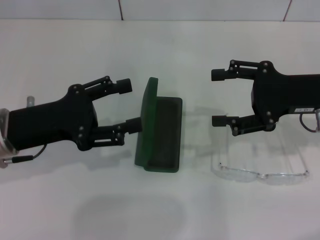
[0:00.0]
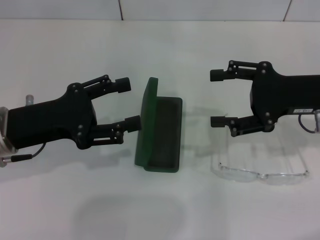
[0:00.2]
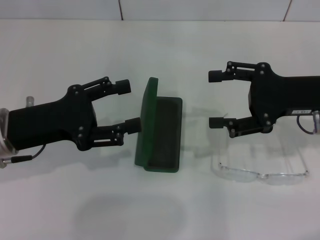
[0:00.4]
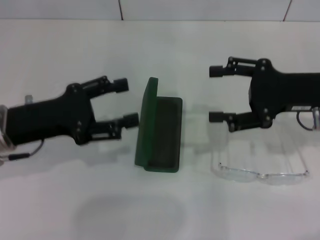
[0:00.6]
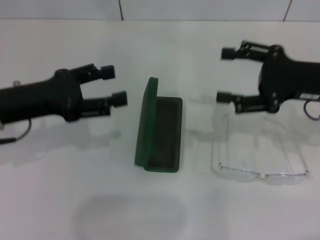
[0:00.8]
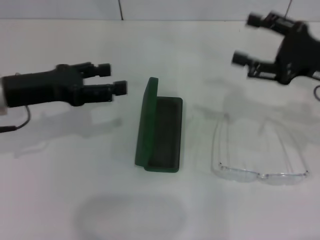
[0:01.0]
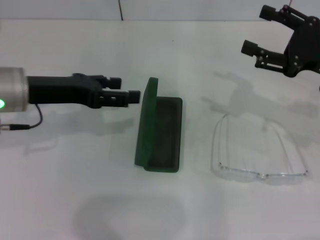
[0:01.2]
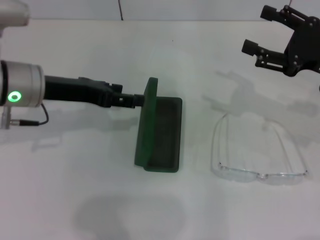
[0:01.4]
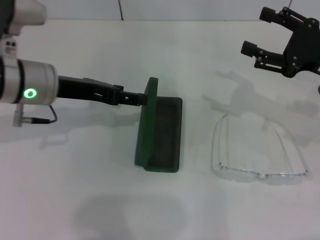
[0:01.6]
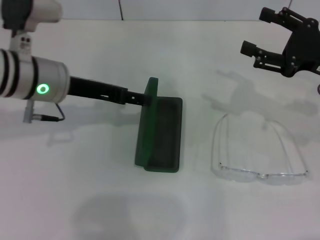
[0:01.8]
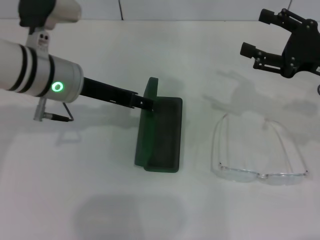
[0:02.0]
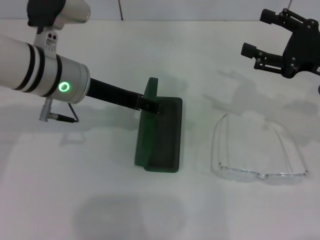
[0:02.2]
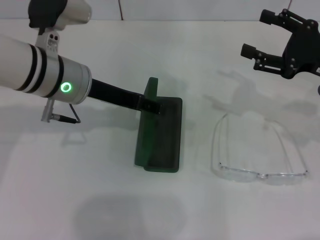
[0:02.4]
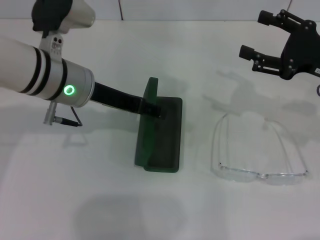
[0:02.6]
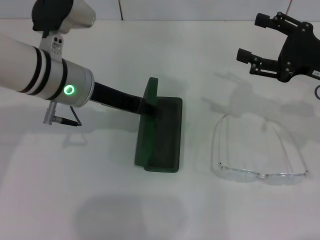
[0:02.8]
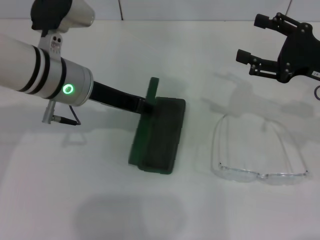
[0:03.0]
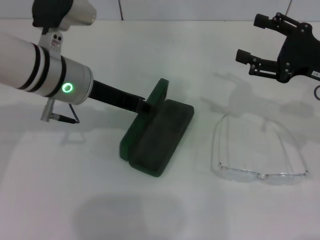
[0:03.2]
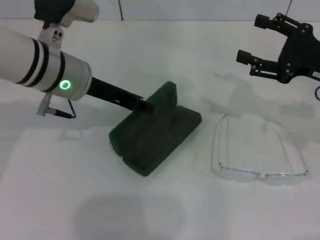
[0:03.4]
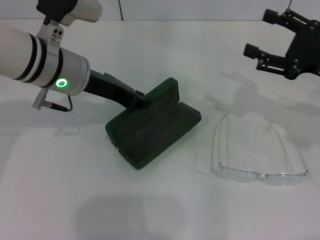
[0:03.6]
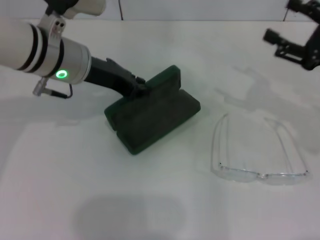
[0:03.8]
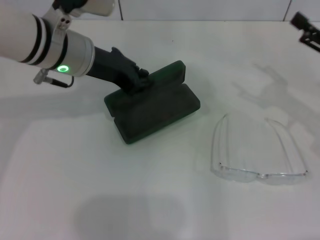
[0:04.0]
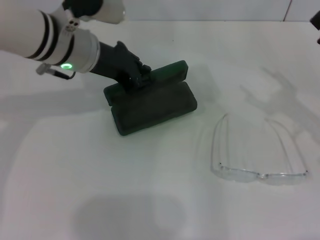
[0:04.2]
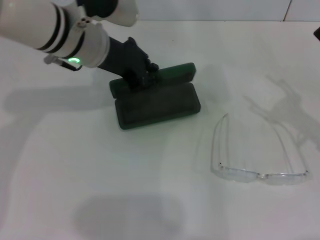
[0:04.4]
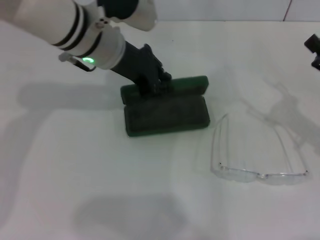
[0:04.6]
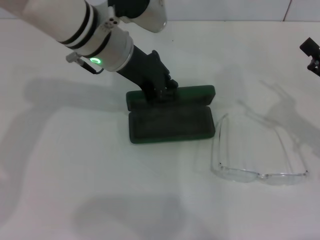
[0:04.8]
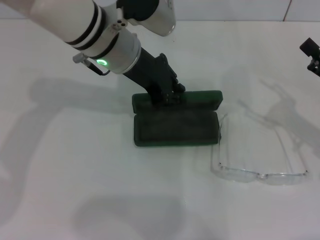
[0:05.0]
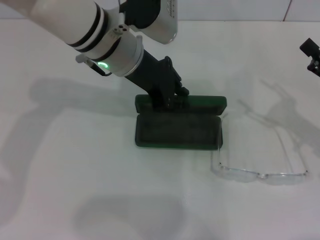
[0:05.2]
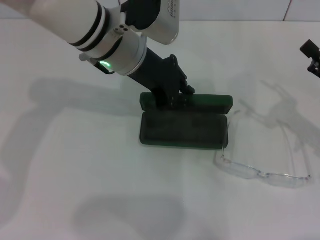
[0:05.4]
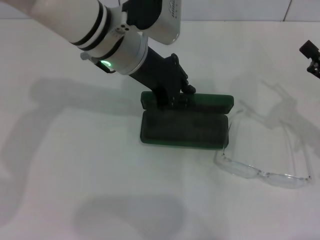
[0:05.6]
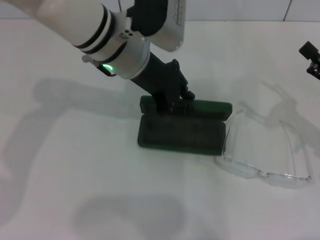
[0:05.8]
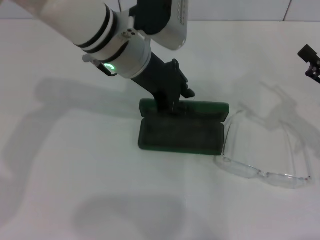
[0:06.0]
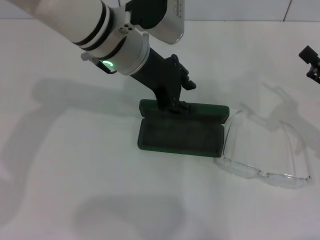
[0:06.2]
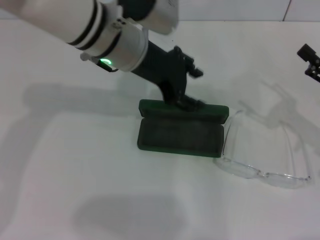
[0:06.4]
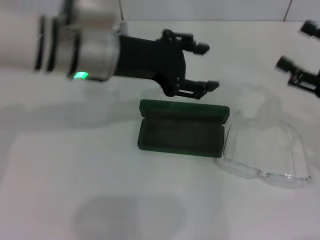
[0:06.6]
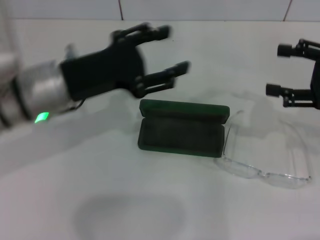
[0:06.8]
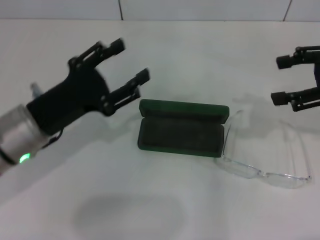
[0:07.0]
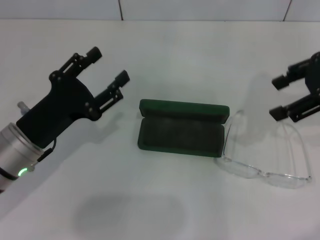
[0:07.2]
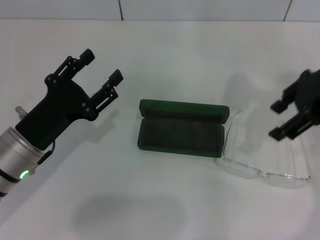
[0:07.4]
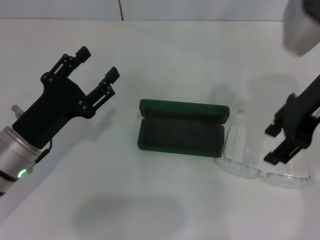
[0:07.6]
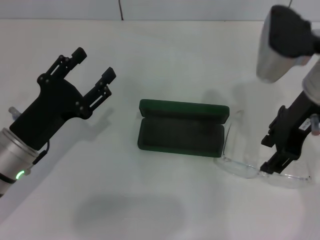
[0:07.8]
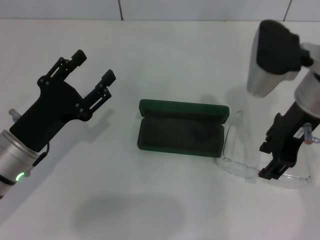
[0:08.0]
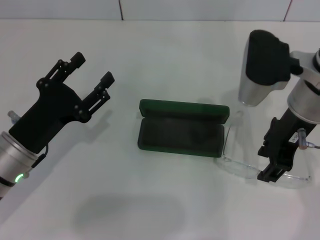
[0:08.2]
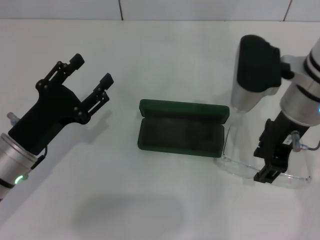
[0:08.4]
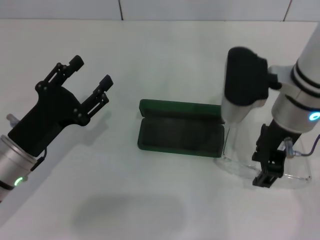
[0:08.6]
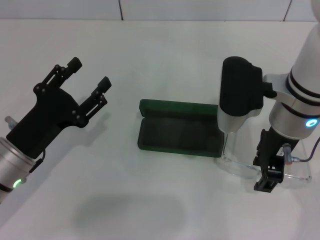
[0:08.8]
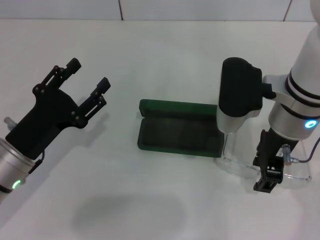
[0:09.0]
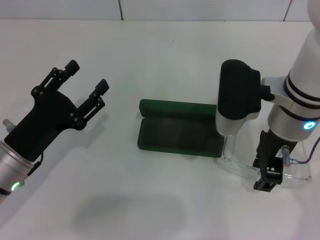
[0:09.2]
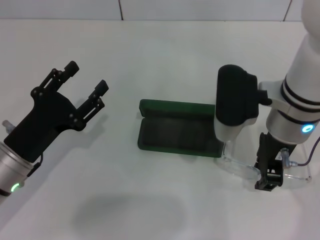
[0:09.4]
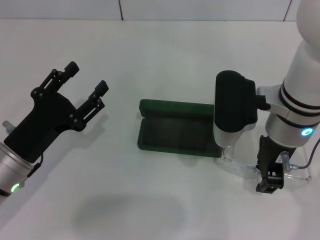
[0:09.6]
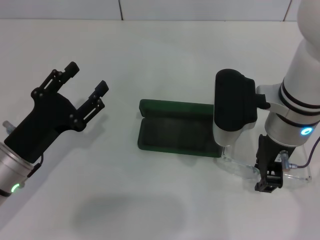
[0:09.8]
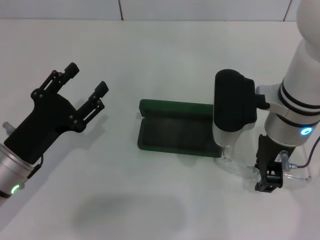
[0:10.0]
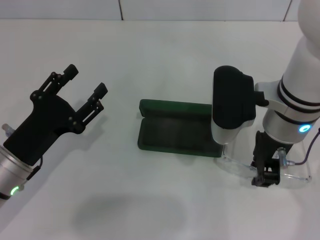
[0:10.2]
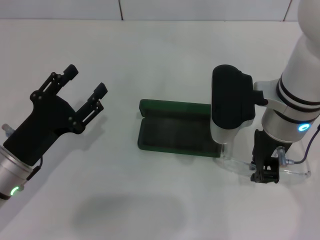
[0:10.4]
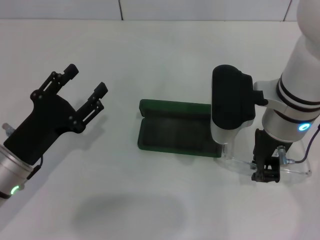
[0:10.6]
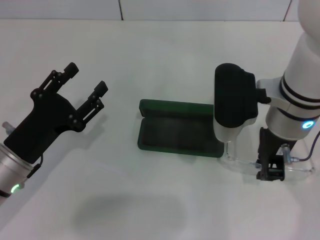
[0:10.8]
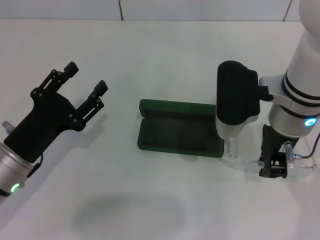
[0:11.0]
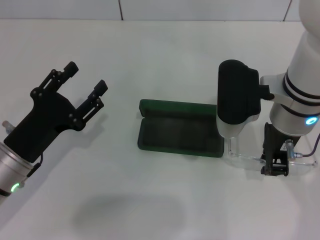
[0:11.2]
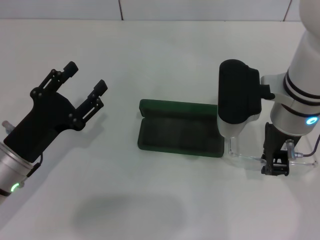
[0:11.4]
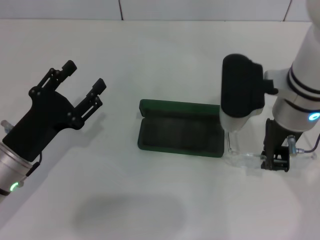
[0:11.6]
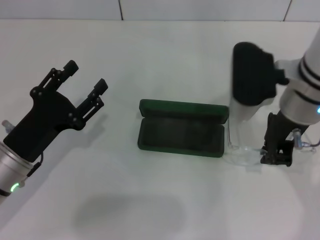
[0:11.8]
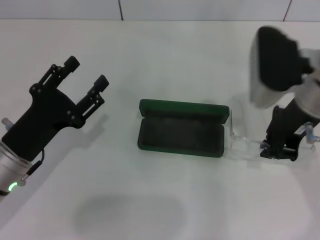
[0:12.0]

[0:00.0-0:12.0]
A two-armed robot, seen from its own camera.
Step, 0:00.0 to 0:03.0: Grab the glasses case with your left hand.
Step, 0:03.2 to 0:06.2: Place the glasses case in the center of the table with your left hand.
Step, 0:06.4 to 0:11.4: Grab the eyeglass frame with your right hand.
0:00.0 to 0:01.6: The left gripper moves forward, roughly 5 cm.
0:01.6 to 0:03.0: The grippers stay close to where they were, moving slightly.
0:03.0 to 0:04.4: The right gripper heads backward, covering about 5 cm; the left gripper changes place by roughly 5 cm, and closes up.
0:04.4 to 0:06.0: The left gripper moves to the right, some 5 cm.
0:06.0 to 0:07.6: The left gripper is displaced to the left, backward and downward by approximately 25 cm, and opens. Meanwhile the right gripper moves upward, to the left and forward, some 20 cm.
0:07.6 to 0:09.0: The right gripper shifts some 10 cm to the left and downward.
0:09.0 to 0:10.4: The right gripper closes up.
0:10.4 to 0:12.0: The right gripper changes place by roughly 5 cm.

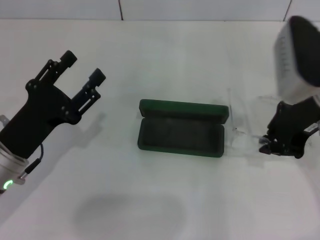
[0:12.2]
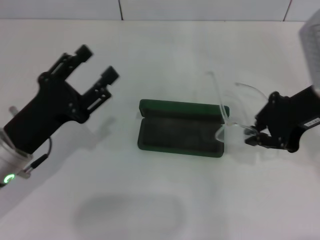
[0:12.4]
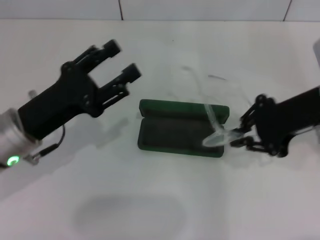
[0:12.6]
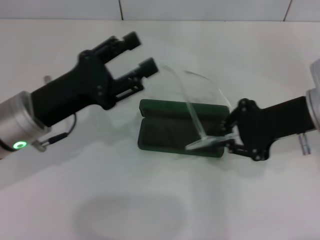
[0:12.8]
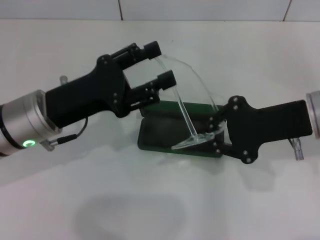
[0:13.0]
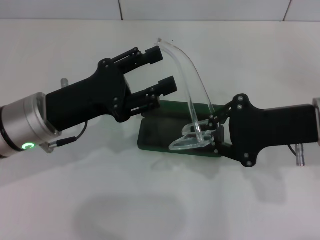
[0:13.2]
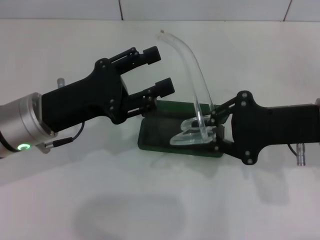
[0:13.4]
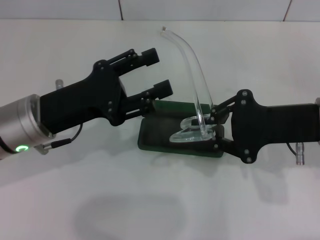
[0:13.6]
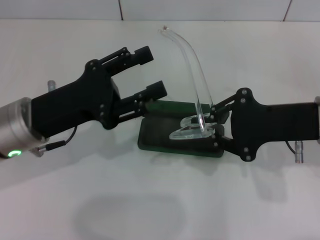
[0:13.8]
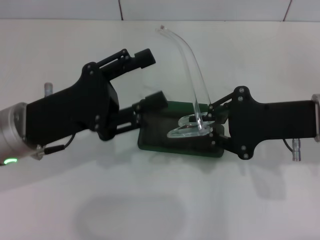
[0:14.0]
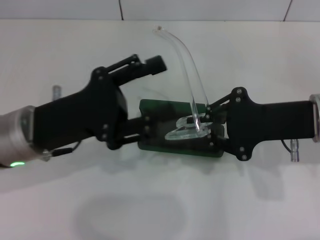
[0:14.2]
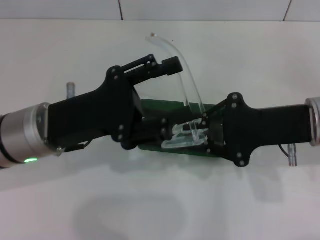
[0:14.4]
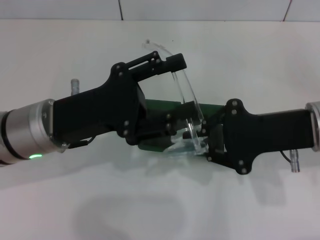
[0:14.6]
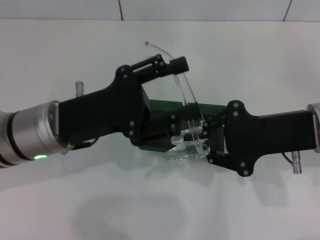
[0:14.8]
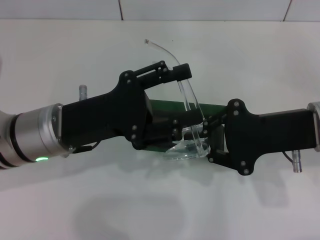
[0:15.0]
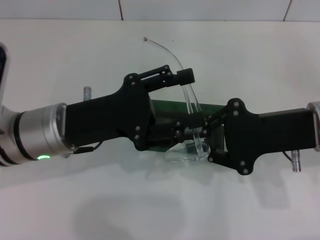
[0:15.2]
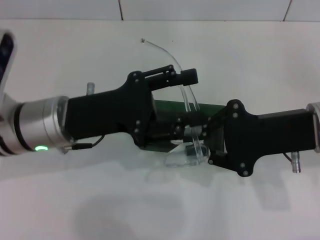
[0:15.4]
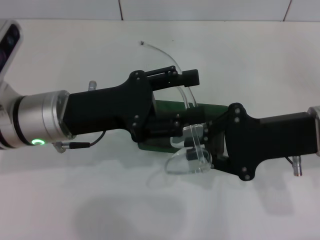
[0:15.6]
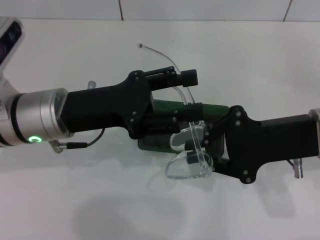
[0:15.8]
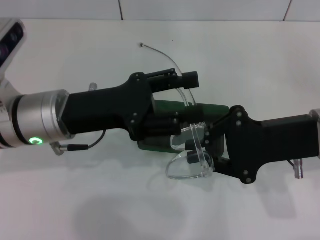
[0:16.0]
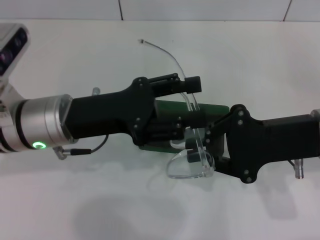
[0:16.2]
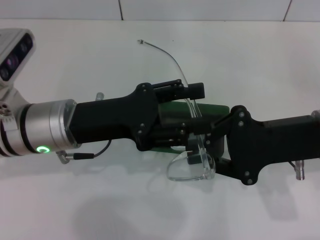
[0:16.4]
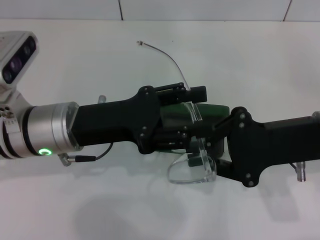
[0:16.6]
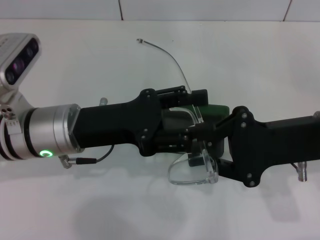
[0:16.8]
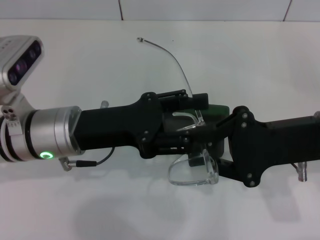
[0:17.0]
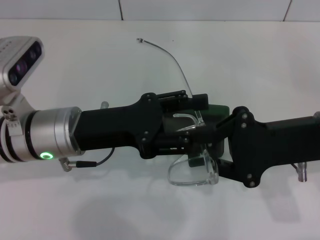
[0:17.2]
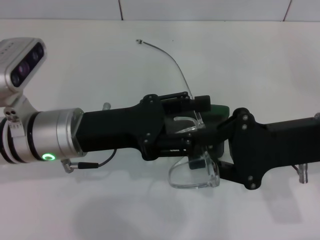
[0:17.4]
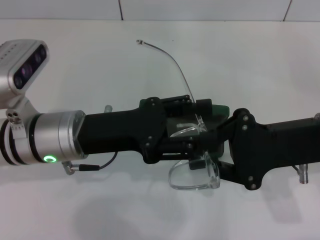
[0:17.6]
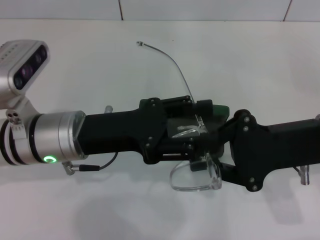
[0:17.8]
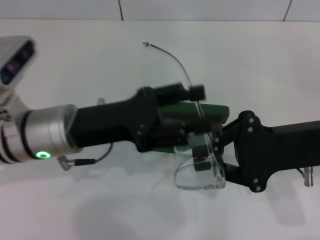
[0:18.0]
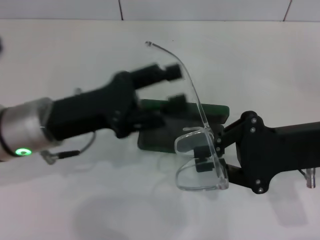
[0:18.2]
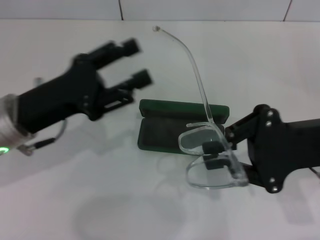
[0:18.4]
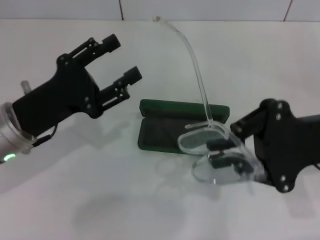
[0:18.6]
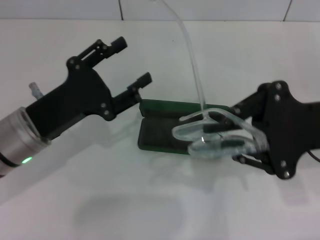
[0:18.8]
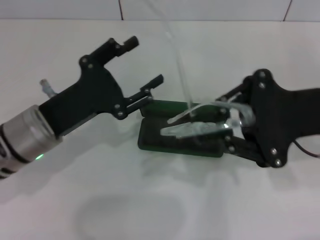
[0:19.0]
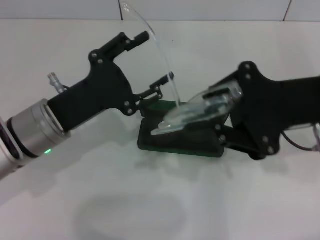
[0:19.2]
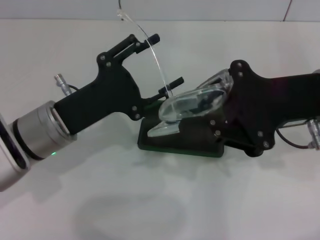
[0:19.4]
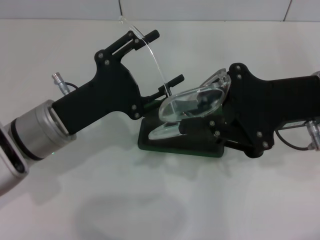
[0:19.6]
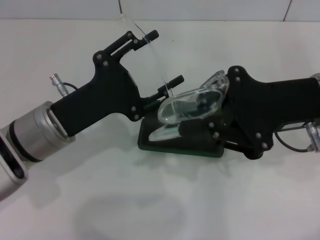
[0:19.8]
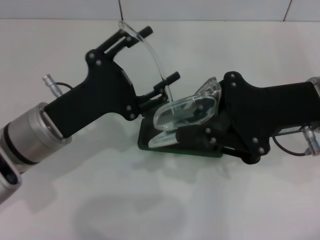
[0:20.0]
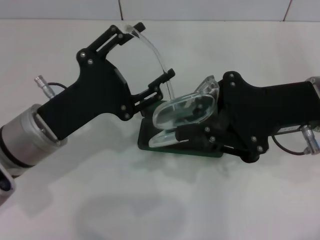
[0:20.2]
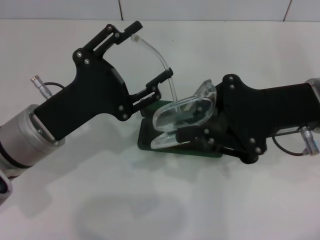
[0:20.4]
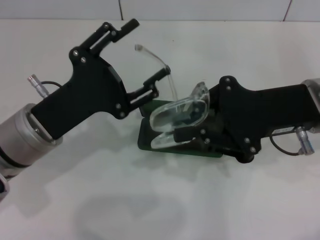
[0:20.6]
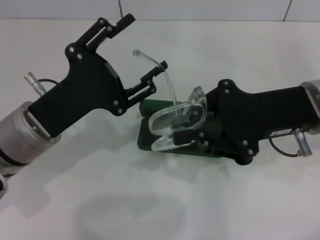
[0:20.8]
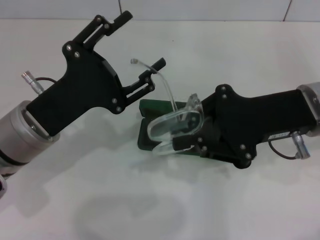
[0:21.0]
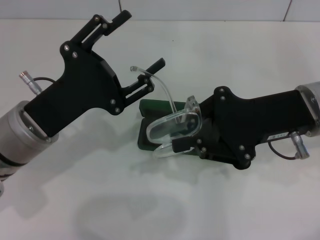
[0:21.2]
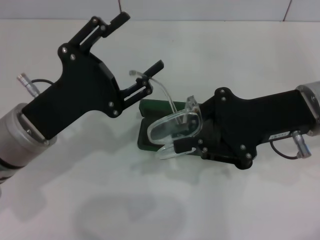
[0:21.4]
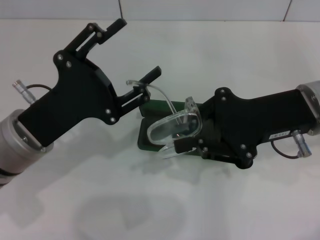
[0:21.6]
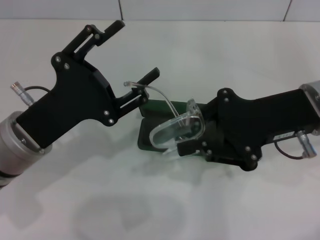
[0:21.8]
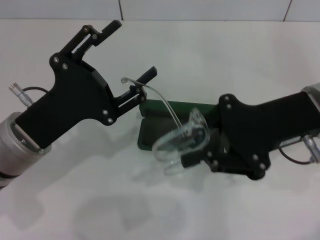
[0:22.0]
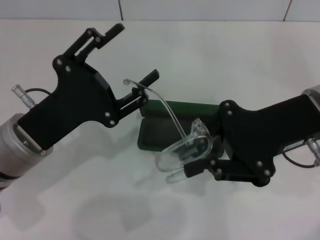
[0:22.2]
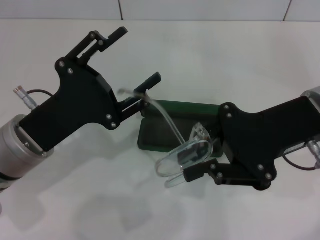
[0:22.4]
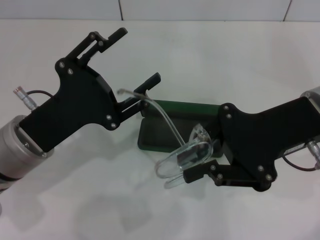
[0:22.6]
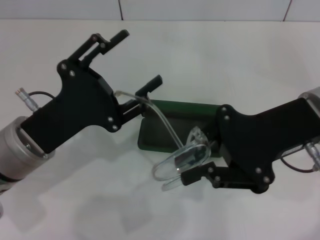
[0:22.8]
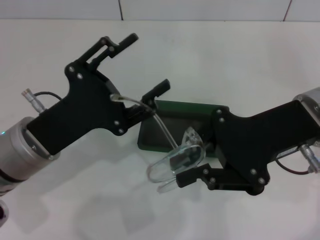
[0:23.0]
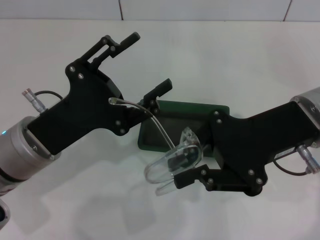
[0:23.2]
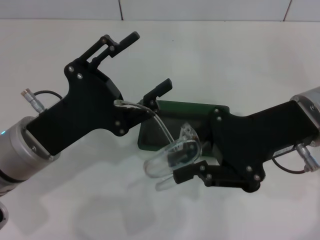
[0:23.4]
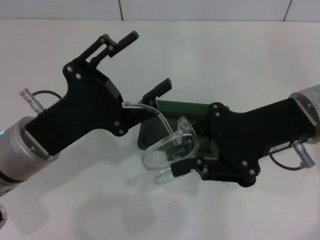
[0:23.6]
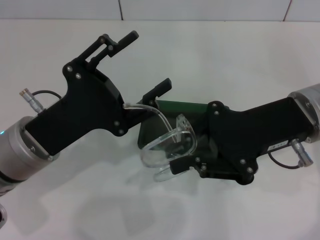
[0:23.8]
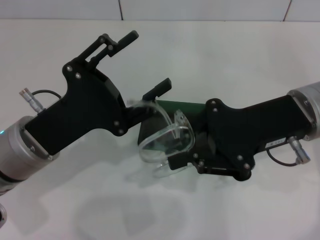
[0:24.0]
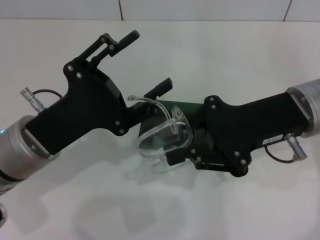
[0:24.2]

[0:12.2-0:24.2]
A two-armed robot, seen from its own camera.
0:12.2 to 0:13.8: The right gripper changes place by approximately 5 cm. Meanwhile the left gripper shifts some 5 cm upward.
0:15.2 to 0:16.6: There are only small adjustments of the grippers.
0:22.6 to 0:24.2: The grippers move only a little.
